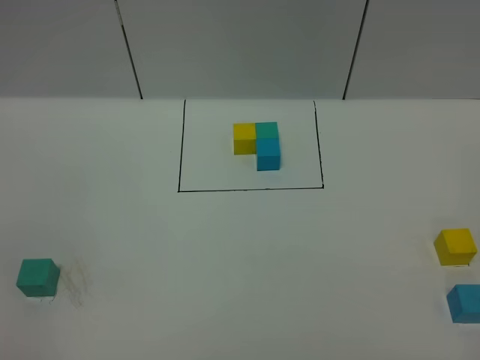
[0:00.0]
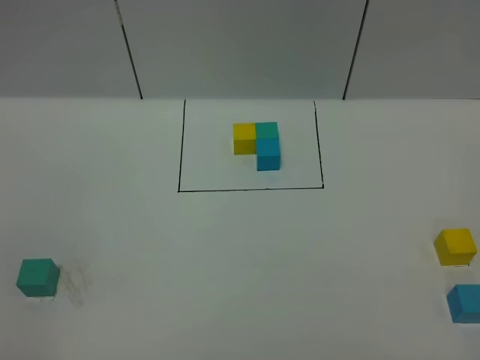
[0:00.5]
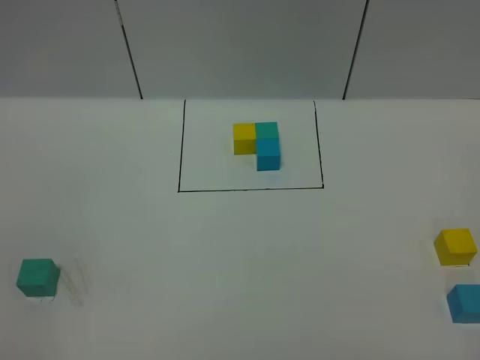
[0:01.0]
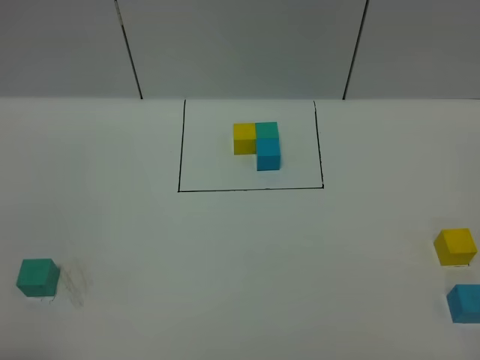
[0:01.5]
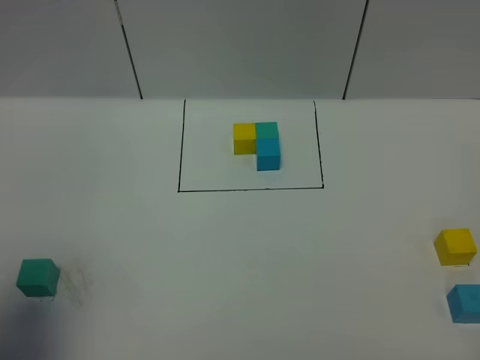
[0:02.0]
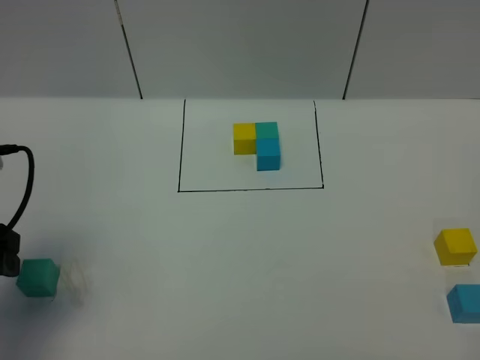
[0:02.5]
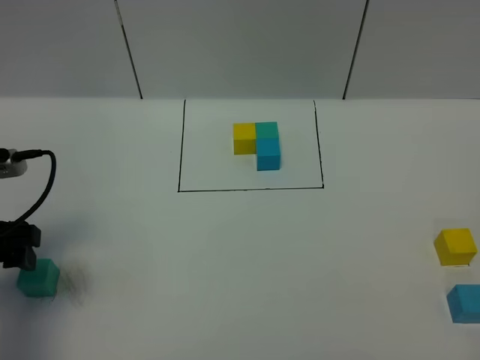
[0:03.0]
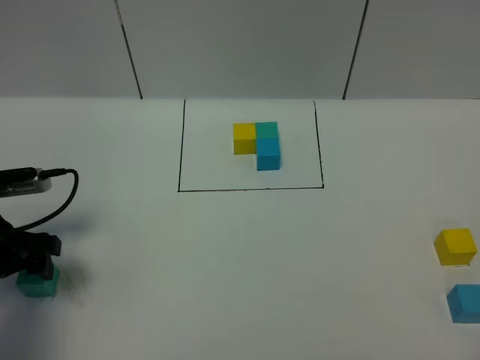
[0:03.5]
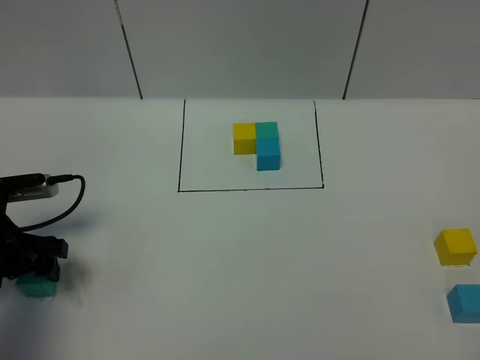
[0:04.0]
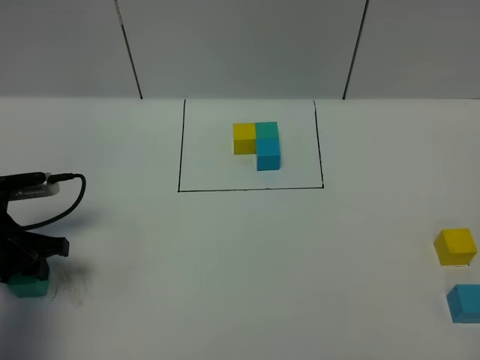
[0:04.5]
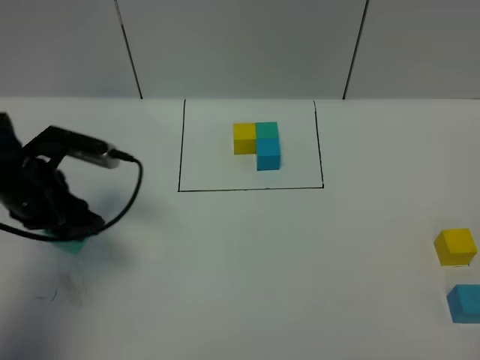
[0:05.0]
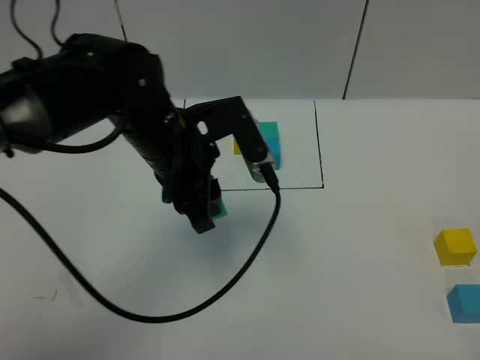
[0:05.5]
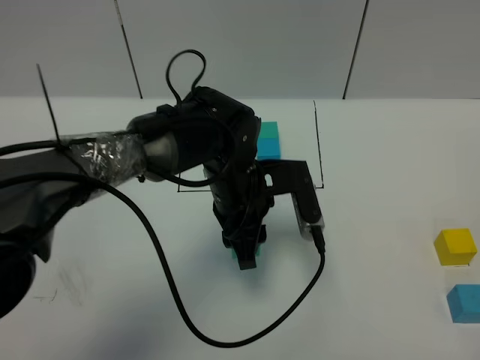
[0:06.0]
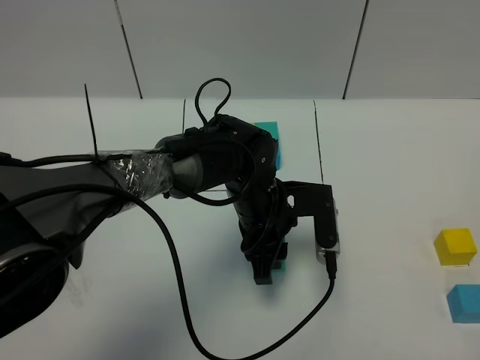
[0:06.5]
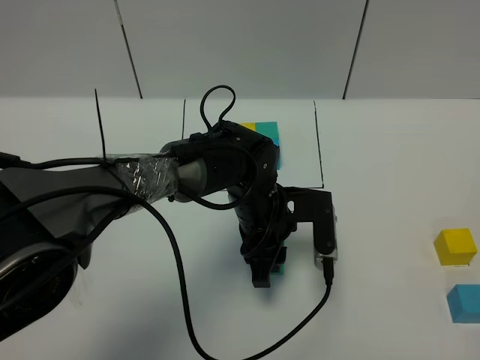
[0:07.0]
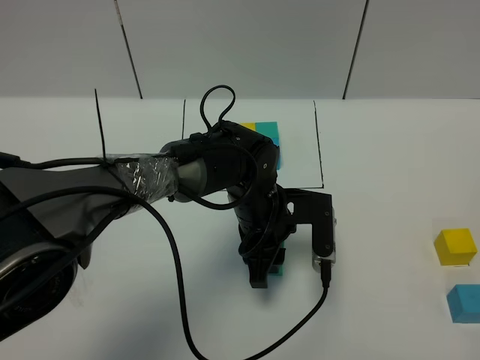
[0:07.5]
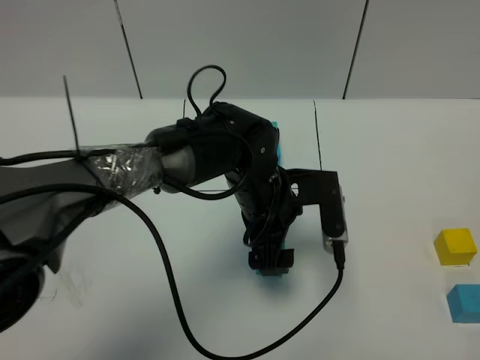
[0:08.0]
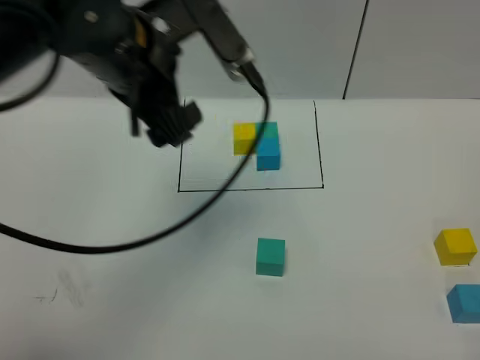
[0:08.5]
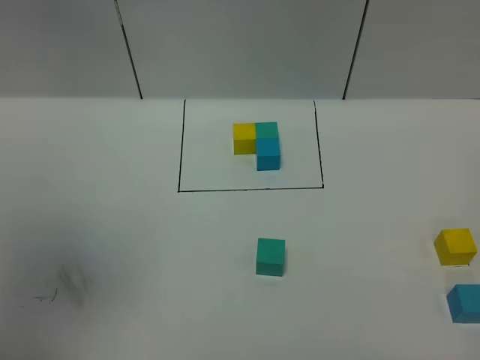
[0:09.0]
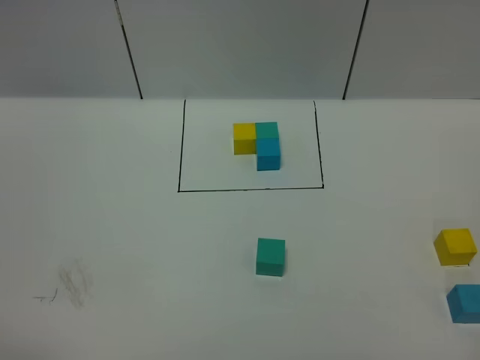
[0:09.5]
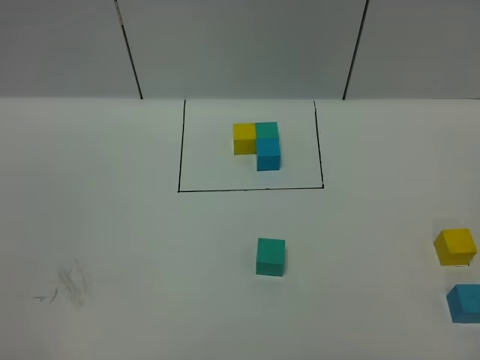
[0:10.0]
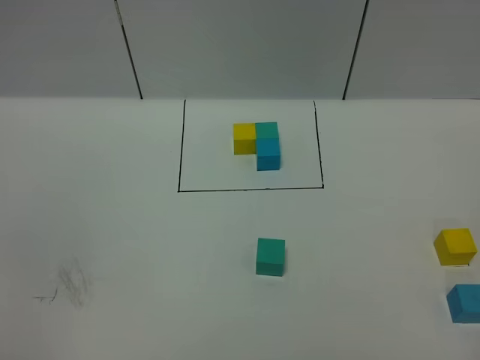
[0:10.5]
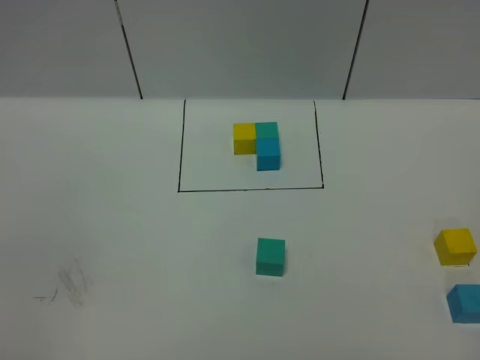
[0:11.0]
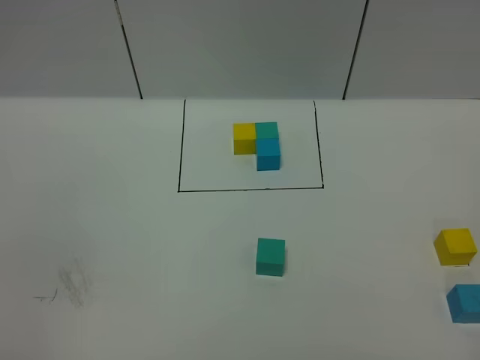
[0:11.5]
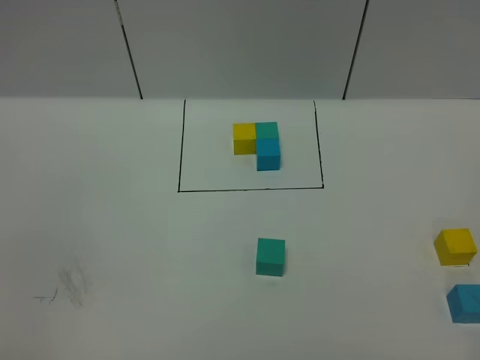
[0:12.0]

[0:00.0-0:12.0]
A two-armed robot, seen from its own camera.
Task of the whole recording: According to the building block template in front, assemble the scattered blocks together.
Step, 0:02.5 to 0:08.0: Put the green cube in the center of the table.
0:00.0 to 0:02.0: The left gripper shifts about 15 cm forward.
0:02.0 to 0:04.0: The left gripper heads downward and forward, covering about 25 cm.
0:04.0 to 0:06.0: The left gripper travels to the right by about 30 cm, and closes.
0:06.0 to 0:08.0: The left gripper opens its fingers.
0:08.0 to 0:10.0: The left gripper goes roughly 50 cm backward, to the left and upward.

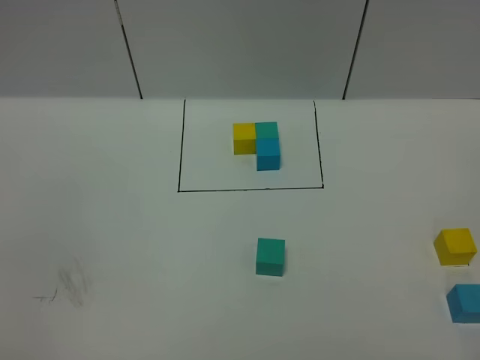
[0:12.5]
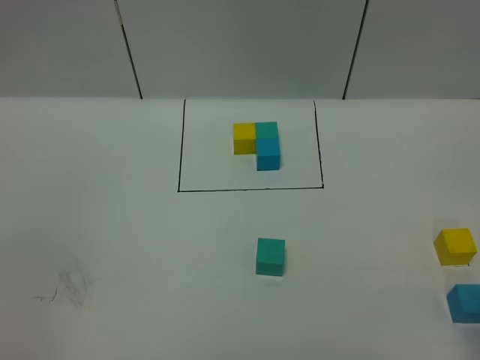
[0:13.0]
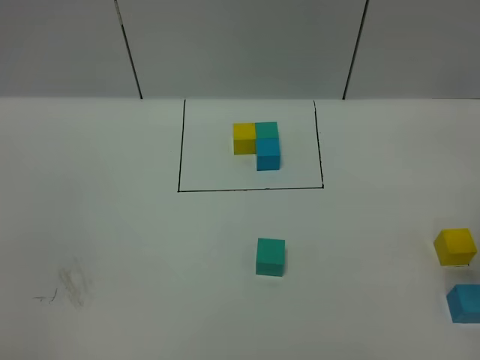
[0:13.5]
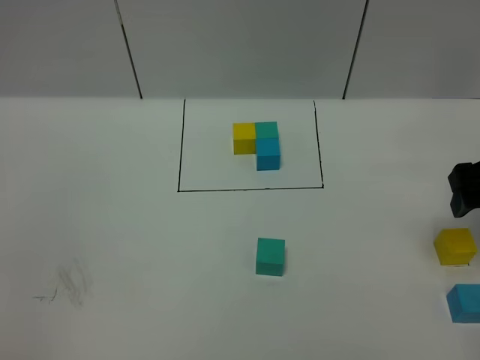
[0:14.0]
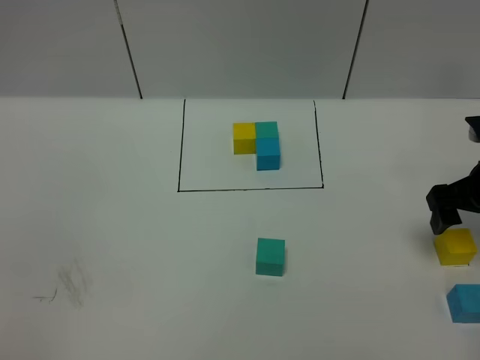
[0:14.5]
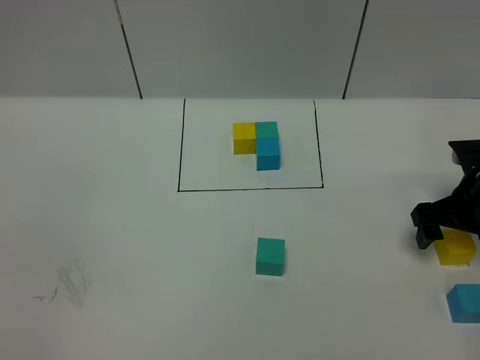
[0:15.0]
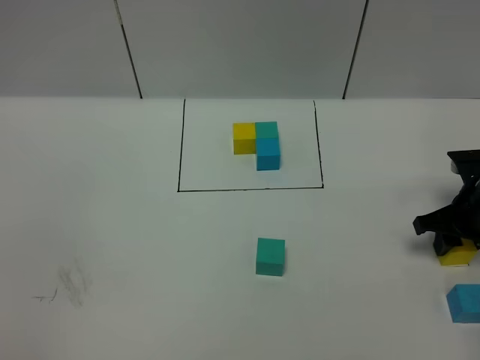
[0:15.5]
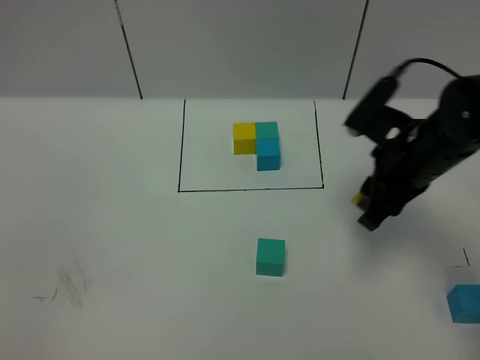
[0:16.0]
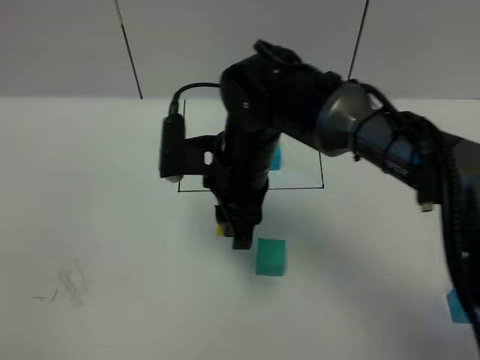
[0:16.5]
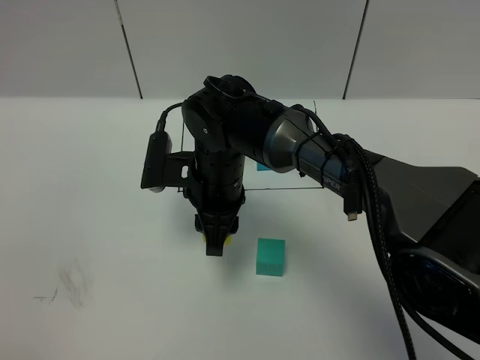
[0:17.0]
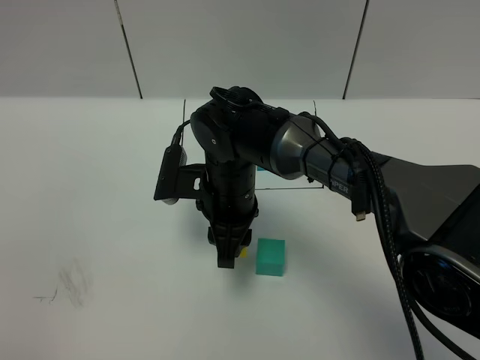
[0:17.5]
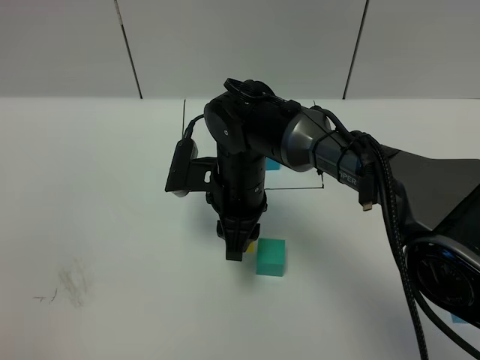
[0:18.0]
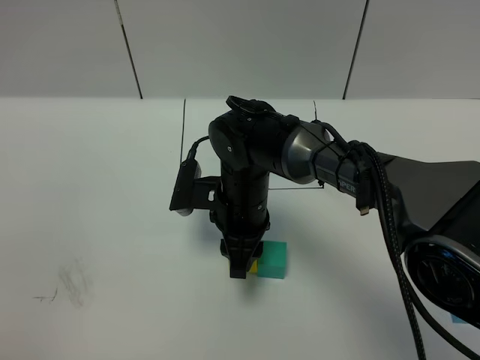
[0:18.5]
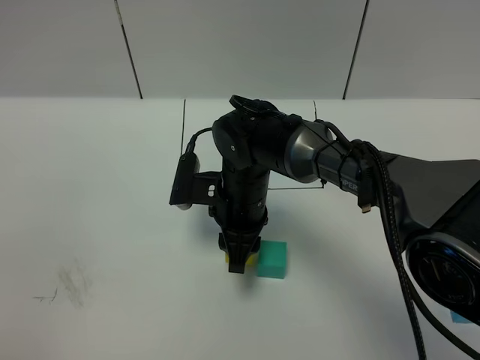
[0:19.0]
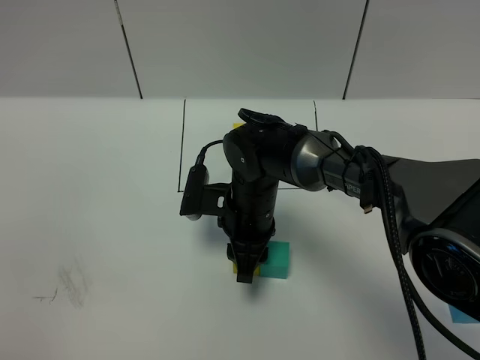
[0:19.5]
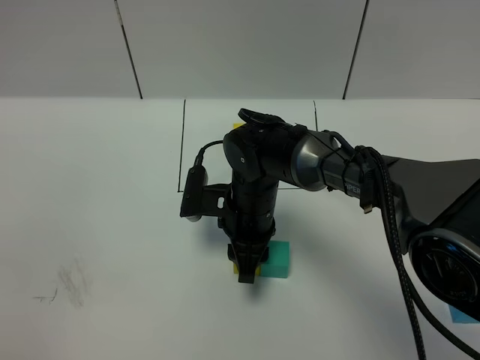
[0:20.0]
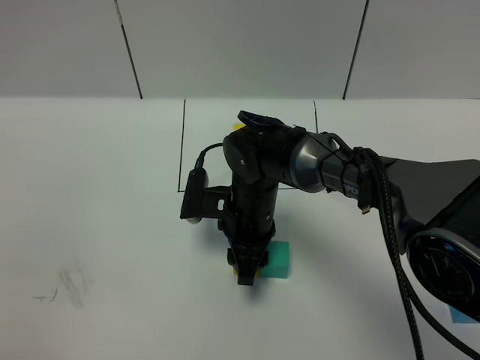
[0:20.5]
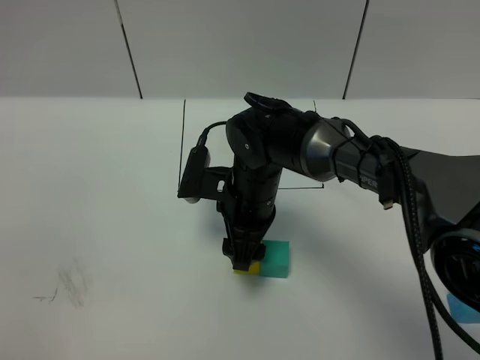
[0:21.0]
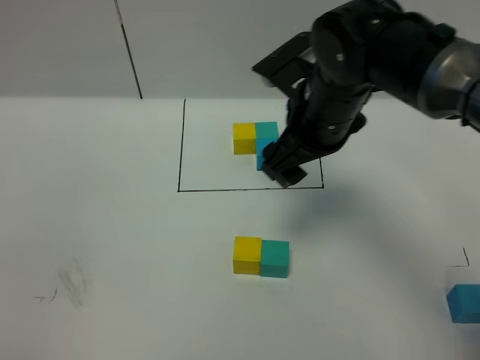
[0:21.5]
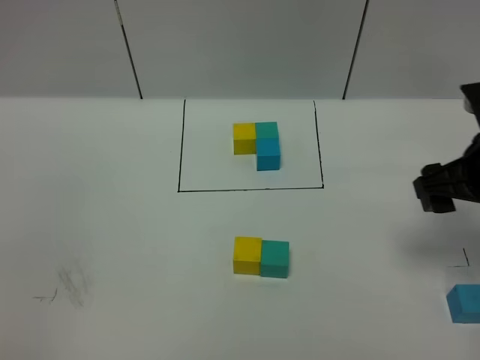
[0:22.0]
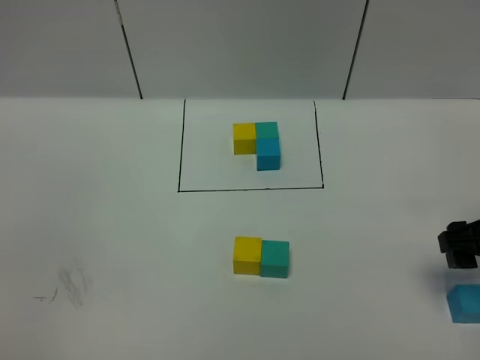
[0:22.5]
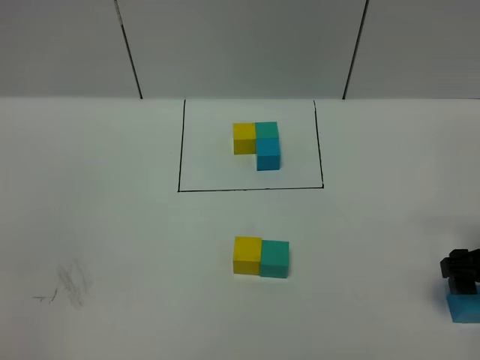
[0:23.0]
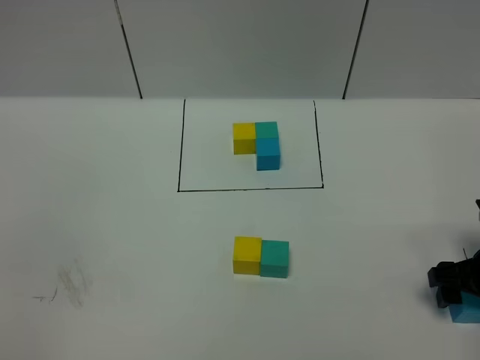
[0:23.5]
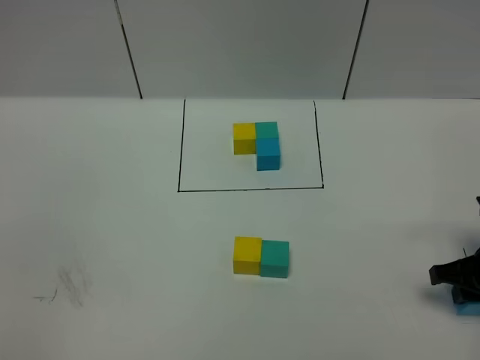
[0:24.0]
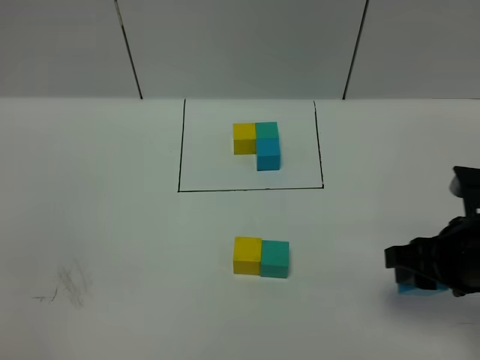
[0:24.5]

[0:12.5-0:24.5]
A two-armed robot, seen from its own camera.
Task of the whole recording: According to the building block template in front, assemble the scattered blocks together.
0:12.5 to 0:14.5: The right gripper travels forward by some 30 cm.
0:14.5 to 0:16.5: The right gripper moves to the left, approximately 30 cm, and closes its fingers.
0:16.5 to 0:18.5: The right gripper goes about 10 cm downward.
0:18.5 to 0:20.5: The grippers move only a little.
0:20.5 to 0:22.5: The right gripper moves to the right, roughly 30 cm, and opens.
0:22.5 to 0:24.5: The right gripper travels to the left by approximately 5 cm, reaches roughly 10 cm downward, then returns, and closes up.

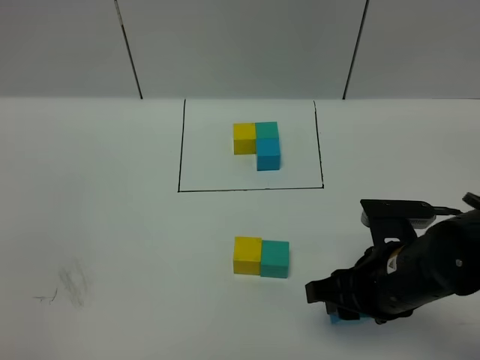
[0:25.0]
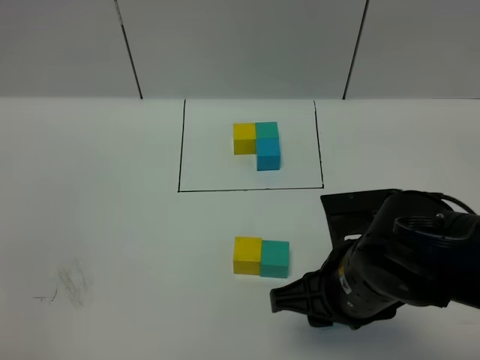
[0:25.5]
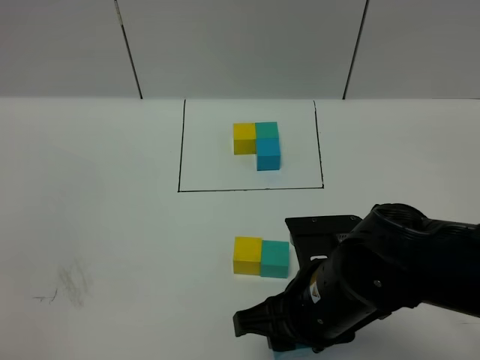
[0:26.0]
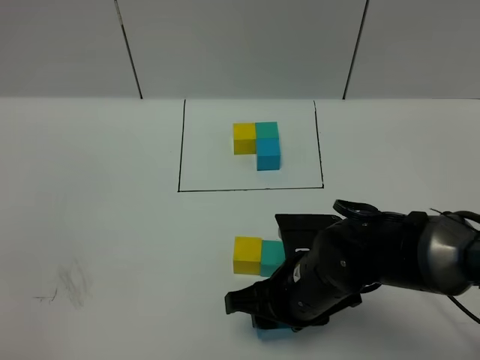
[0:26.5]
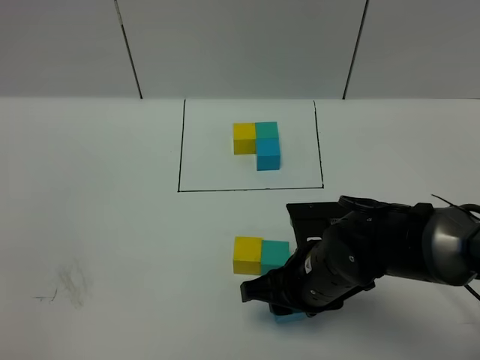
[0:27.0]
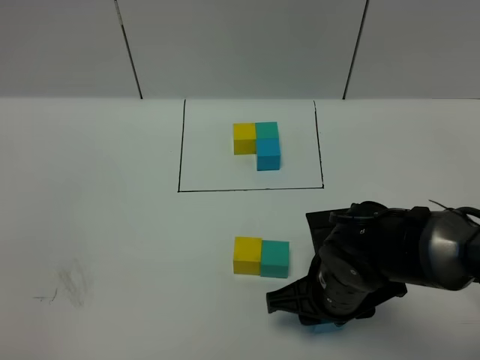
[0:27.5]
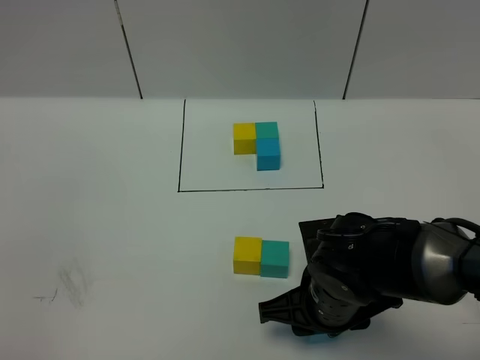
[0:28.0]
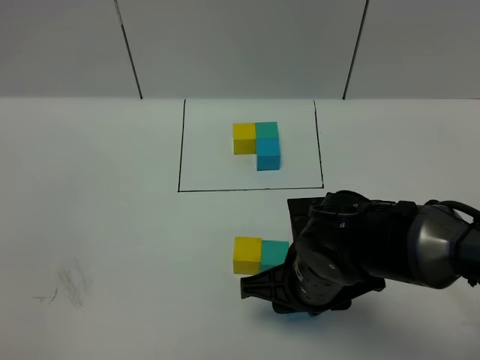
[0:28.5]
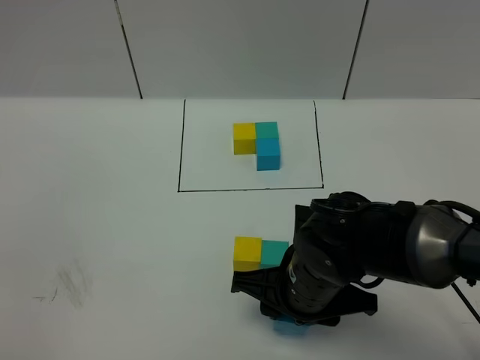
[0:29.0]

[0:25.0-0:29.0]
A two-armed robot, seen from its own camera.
Task of the whole recording: According to the building block template in front, assemble the scattered blocks together.
0:25.0 to 0:27.0: The right gripper heads to the left, covering some 5 cm.
0:27.0 to 0:29.0: The grippers stay close to where they were, moving slightly.
